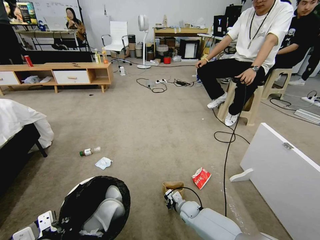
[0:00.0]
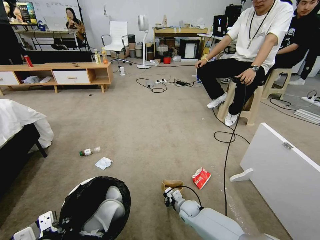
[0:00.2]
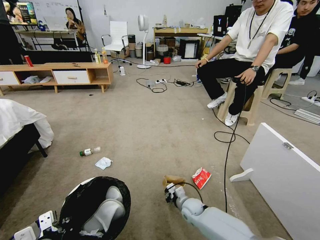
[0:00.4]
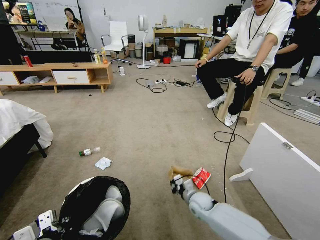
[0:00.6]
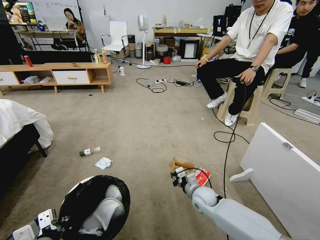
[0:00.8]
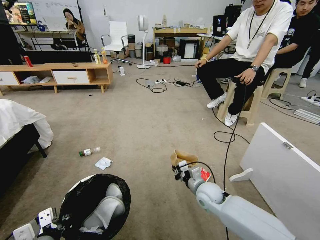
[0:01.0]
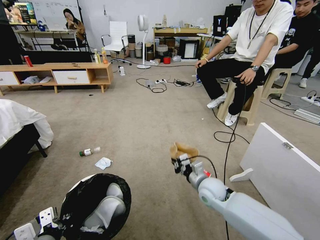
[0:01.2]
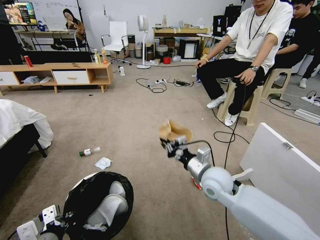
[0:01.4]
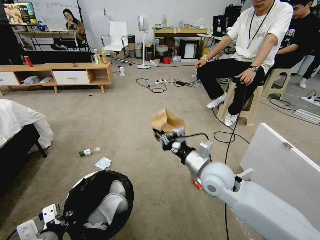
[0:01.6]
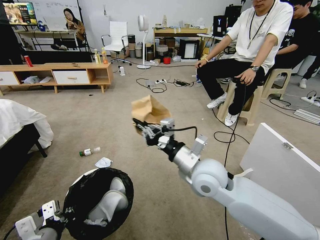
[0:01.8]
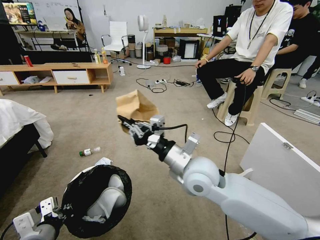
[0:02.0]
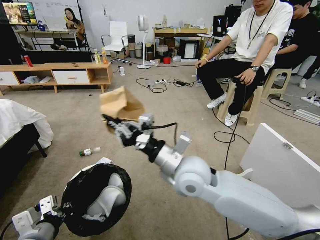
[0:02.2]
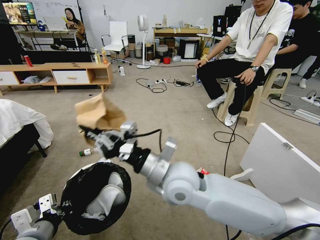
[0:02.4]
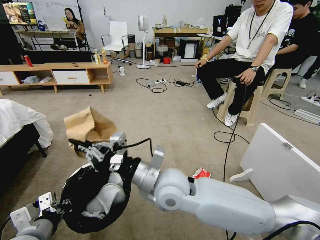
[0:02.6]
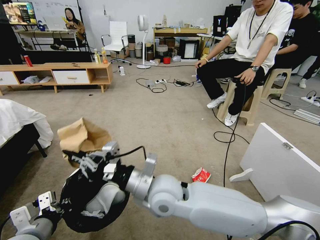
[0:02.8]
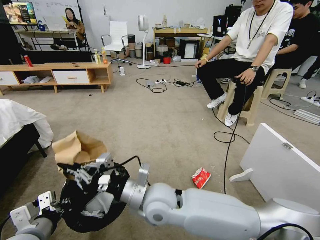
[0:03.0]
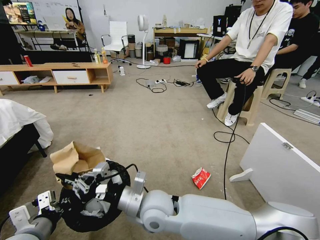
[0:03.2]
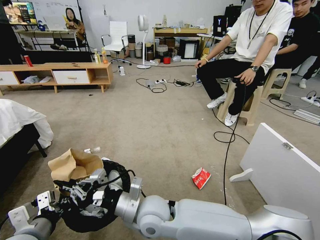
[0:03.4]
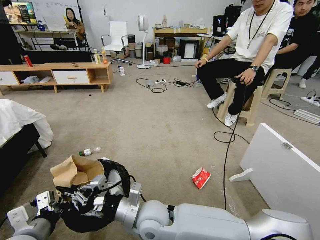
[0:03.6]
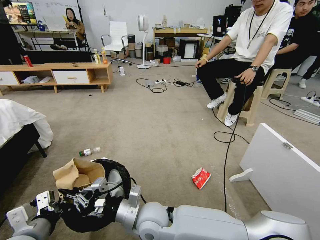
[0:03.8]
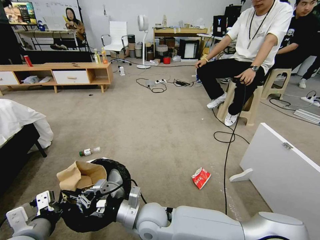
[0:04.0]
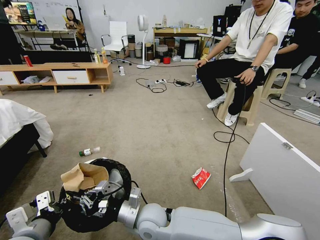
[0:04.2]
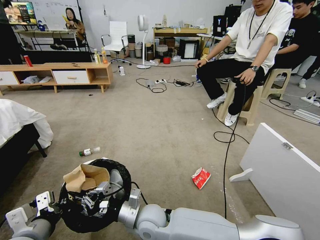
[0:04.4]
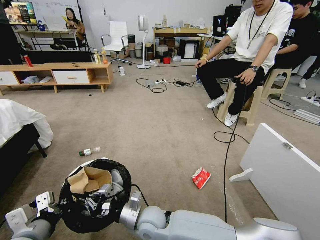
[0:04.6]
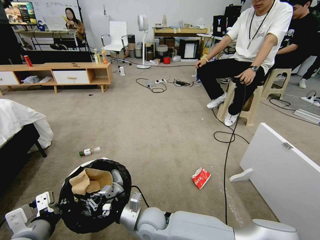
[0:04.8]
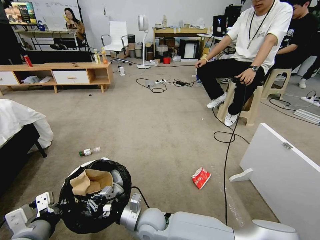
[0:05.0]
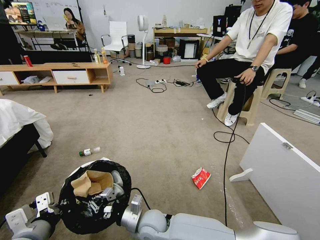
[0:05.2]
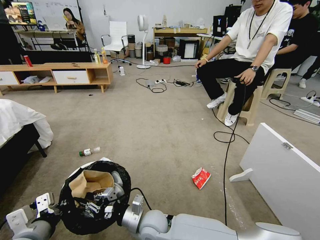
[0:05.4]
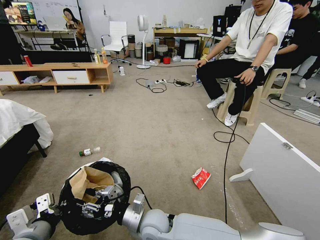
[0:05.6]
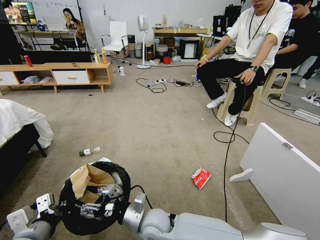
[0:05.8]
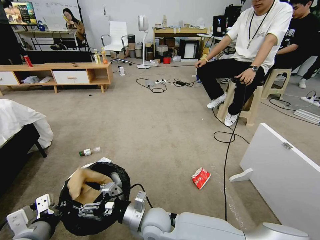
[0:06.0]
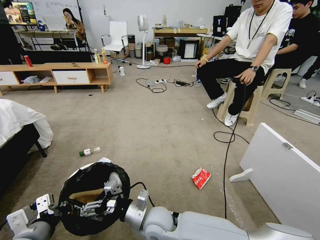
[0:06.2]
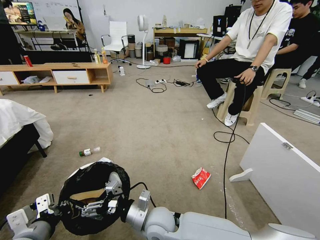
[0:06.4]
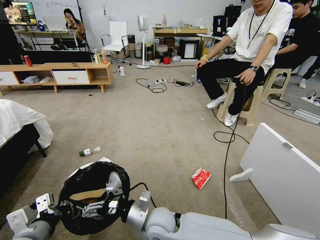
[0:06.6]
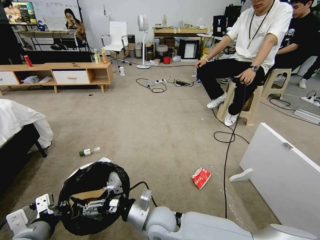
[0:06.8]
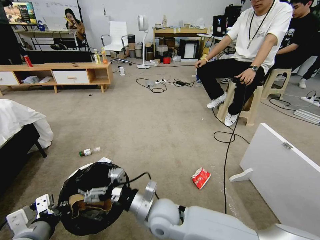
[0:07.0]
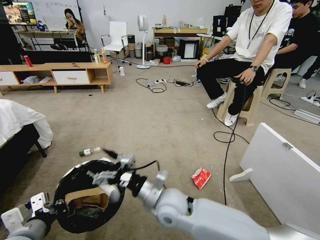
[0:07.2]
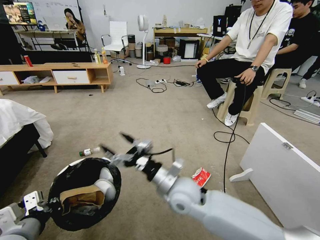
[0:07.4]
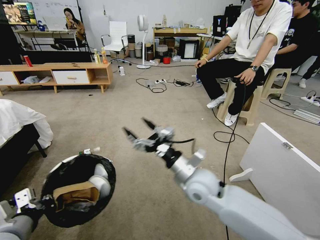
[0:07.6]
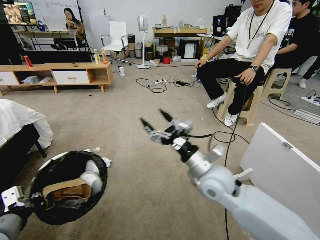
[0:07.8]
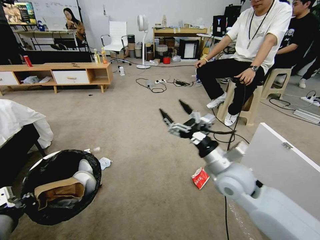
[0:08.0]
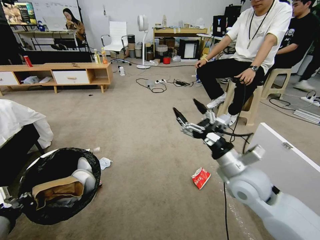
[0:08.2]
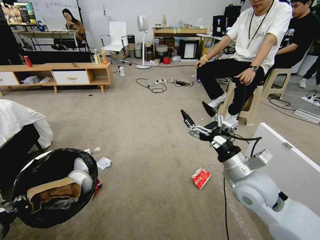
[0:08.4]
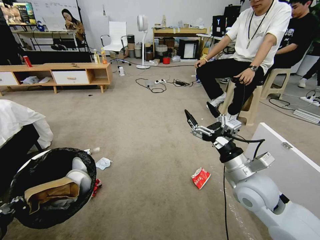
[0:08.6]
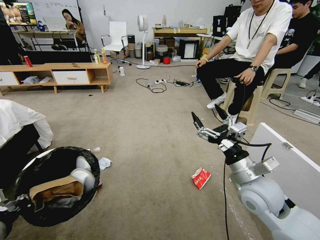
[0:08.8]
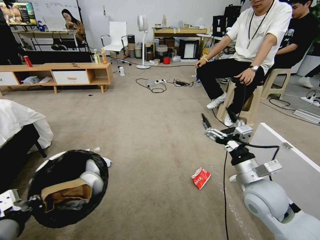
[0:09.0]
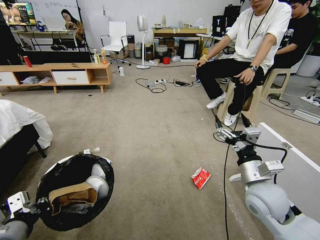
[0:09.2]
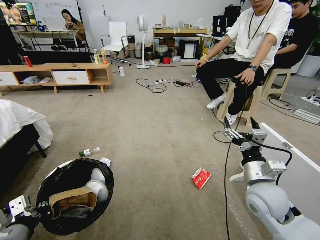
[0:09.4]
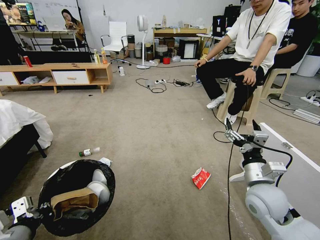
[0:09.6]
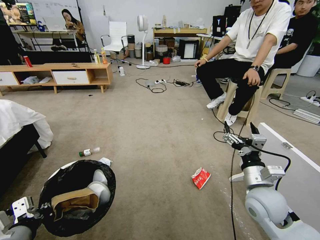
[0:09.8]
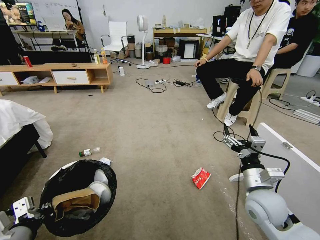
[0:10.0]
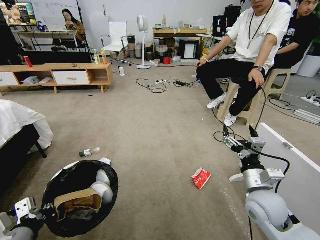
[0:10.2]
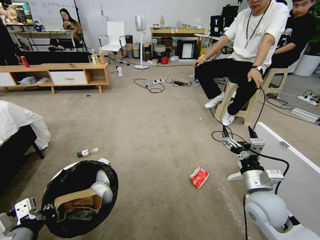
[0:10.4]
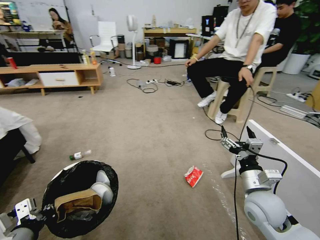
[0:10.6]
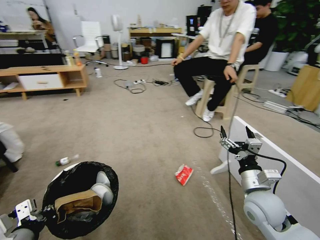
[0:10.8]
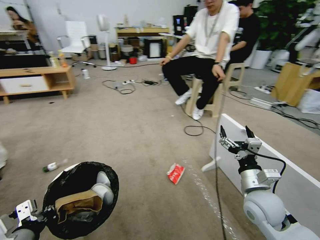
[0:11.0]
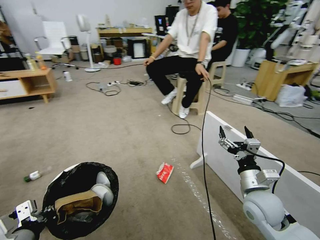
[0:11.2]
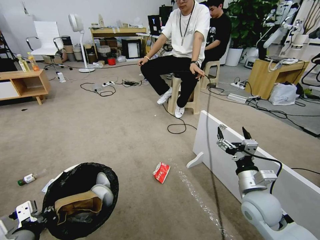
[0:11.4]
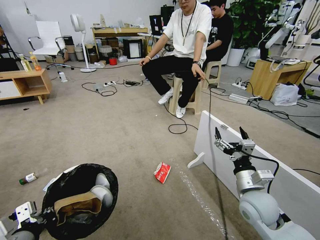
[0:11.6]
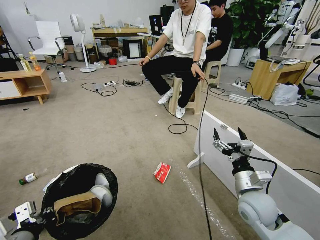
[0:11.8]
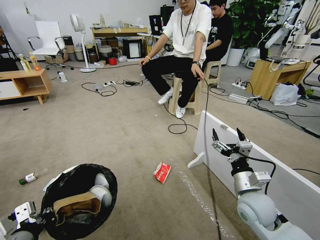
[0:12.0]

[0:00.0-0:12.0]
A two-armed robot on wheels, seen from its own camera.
Task of the whole recording: Pick up the trash bin and place the garbage on the floor into it.
0:00.0 to 0:01.6: The right gripper goes approximately 35 cm upward.
0:01.6 to 0:03.0: The right gripper goes approximately 15 cm to the left.
0:03.0 to 0:04.4: The right gripper heads downward, covering about 10 cm.
0:04.4 to 0:06.0: The right gripper opens up.
0:06.0 to 0:07.6: The right gripper is displaced to the right, upward and forward by about 20 cm.
0:07.6 to 0:09.0: The right gripper heads to the right, covering roughly 15 cm.

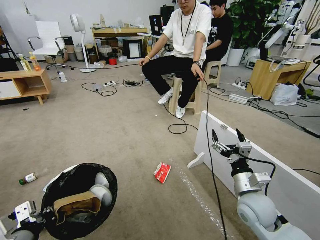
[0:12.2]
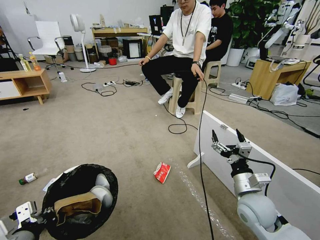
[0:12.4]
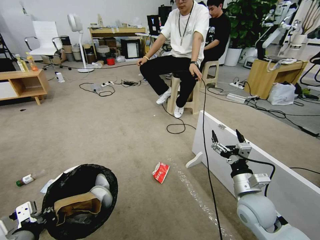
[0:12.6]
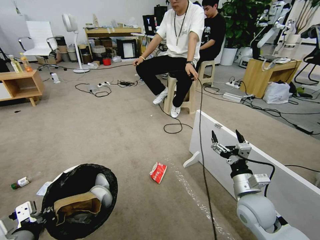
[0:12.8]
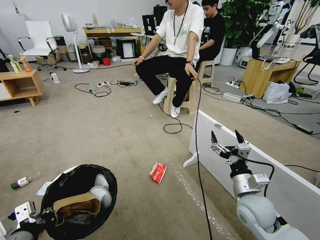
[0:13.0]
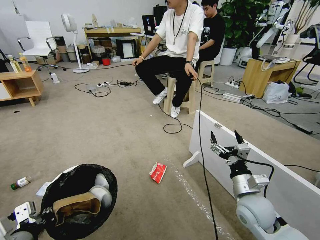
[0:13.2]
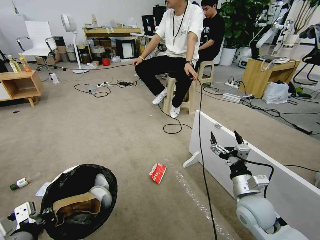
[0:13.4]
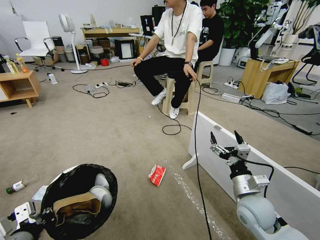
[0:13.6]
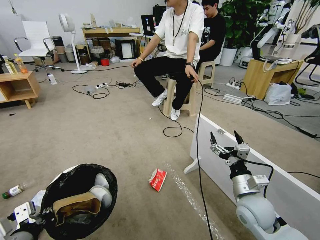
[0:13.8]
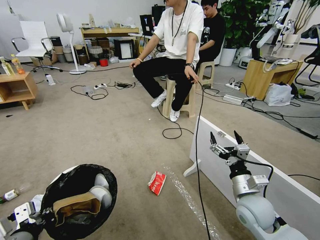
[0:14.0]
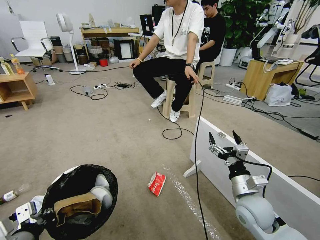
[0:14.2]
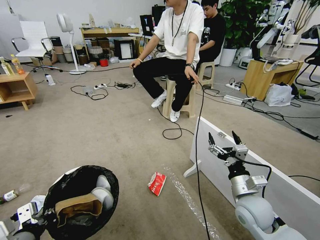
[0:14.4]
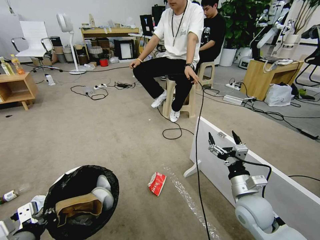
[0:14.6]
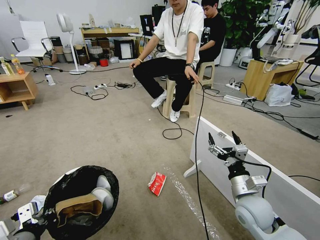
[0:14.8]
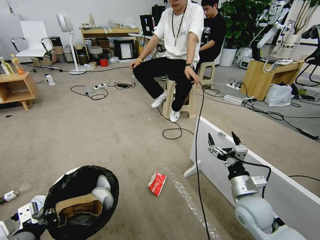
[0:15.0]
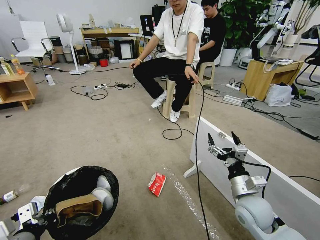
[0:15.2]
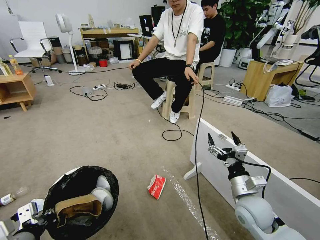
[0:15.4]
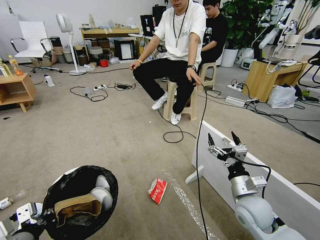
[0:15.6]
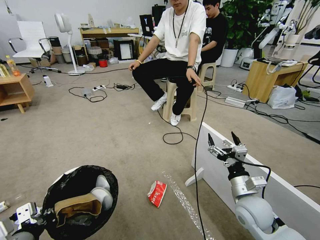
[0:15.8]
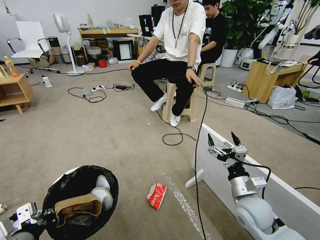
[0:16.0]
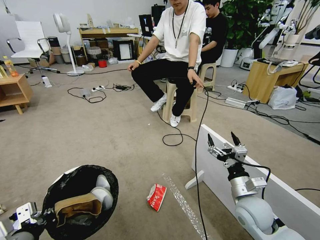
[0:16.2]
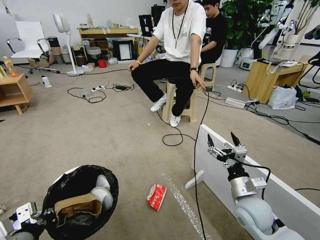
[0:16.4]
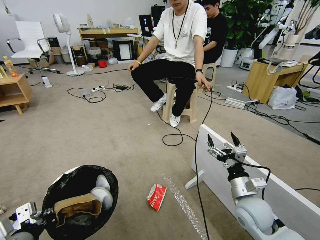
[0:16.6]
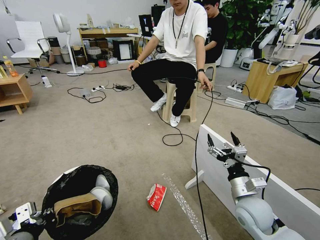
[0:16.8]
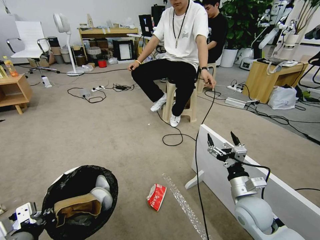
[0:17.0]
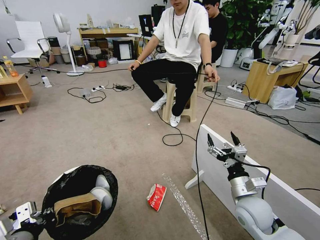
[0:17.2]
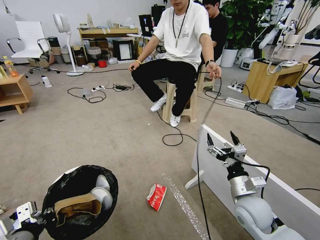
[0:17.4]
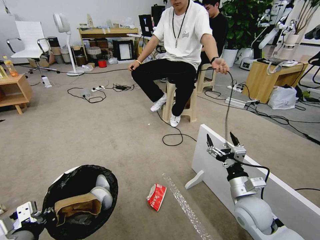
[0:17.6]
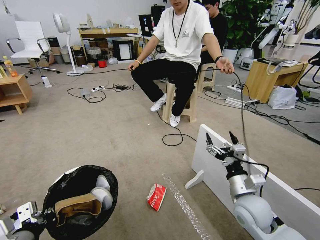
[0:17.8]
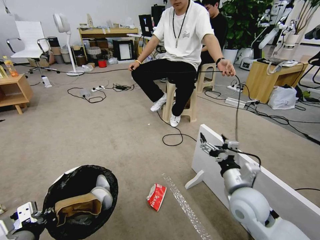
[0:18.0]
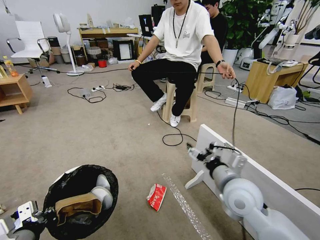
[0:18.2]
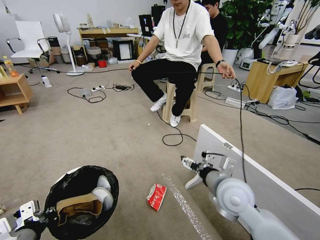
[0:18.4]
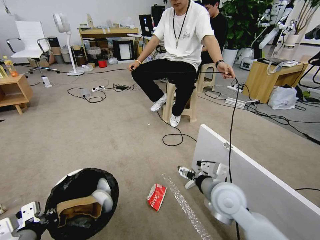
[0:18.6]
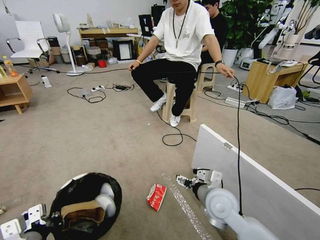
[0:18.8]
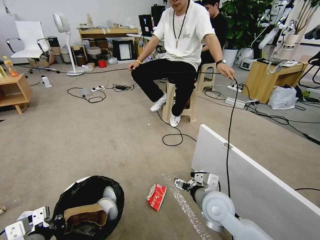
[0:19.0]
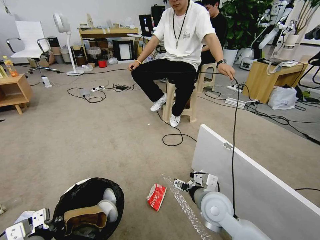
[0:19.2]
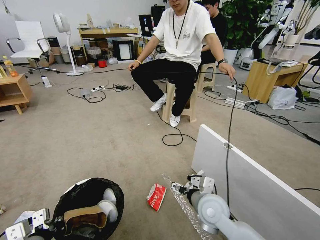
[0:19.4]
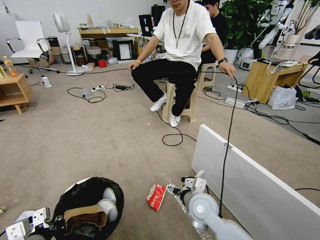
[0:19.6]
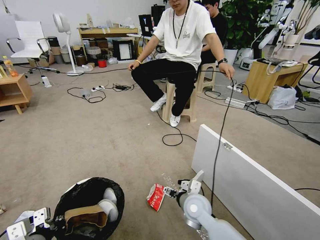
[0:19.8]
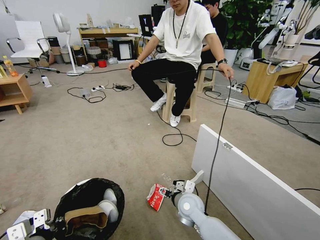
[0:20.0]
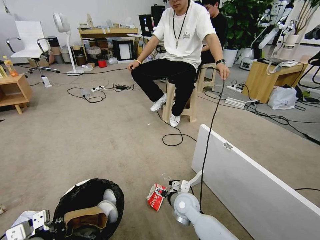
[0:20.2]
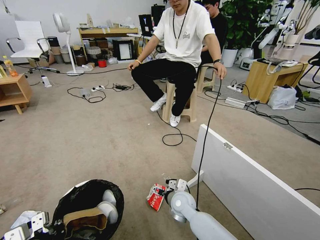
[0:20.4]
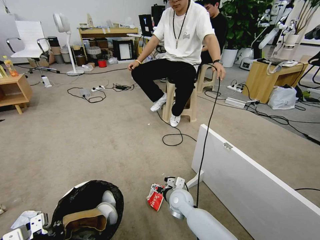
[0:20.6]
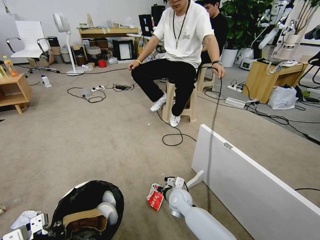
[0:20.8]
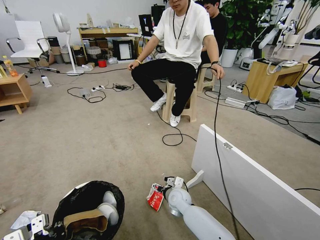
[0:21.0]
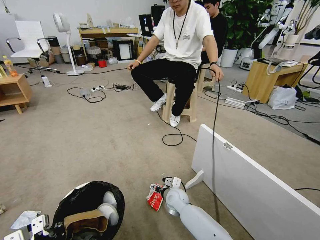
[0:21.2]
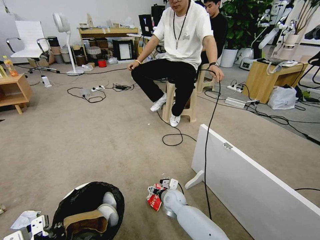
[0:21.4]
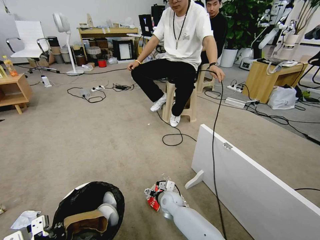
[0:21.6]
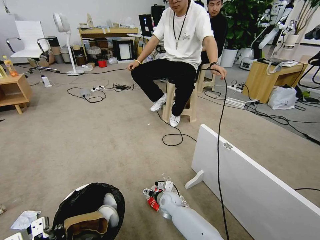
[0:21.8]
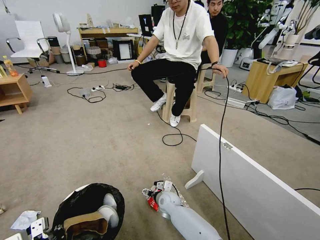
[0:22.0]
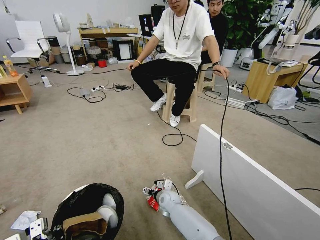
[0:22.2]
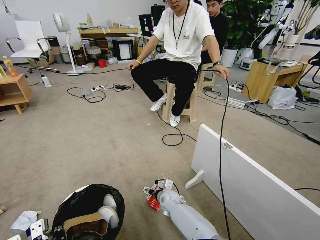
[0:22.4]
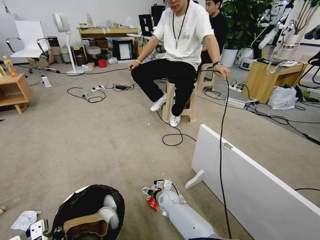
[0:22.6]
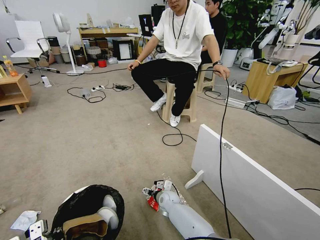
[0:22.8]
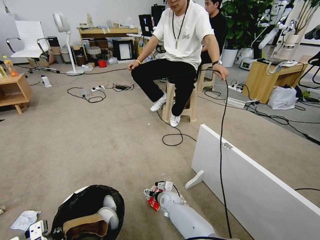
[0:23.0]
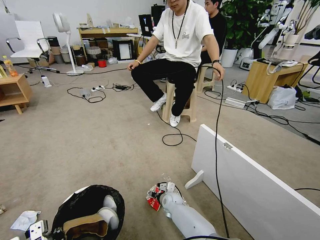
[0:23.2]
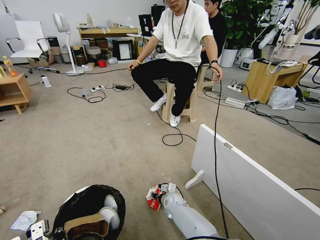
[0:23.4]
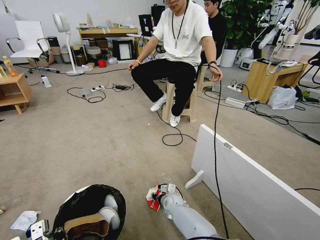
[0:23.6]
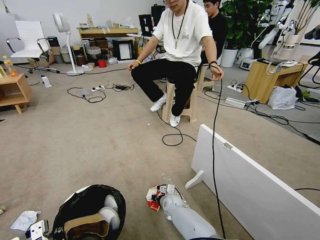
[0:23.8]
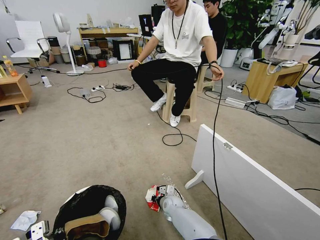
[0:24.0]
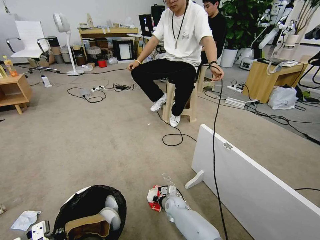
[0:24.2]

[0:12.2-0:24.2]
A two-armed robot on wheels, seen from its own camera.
Task of the whole recording: Pick up the trash bin and place the garbage on the floor into it.
0:13.8 to 0:15.2: Both grippers stay put.
0:16.6 to 0:18.2: The right gripper heads upward and to the left, covering some 10 cm.
0:18.2 to 0:19.8: The right gripper goes roughly 15 cm downward and to the left.
0:19.8 to 0:21.2: The right gripper travels downward, forward and to the left by some 15 cm.
0:21.2 to 0:22.6: The right gripper travels downward by approximately 5 cm.
0:22.6 to 0:24.2: The right gripper closes.
